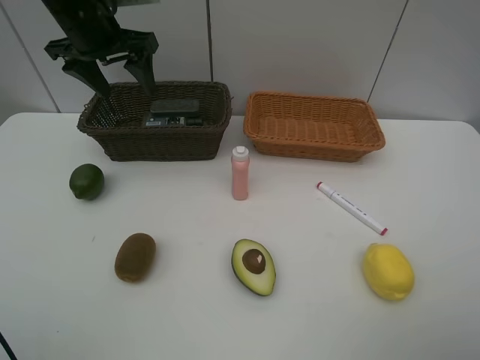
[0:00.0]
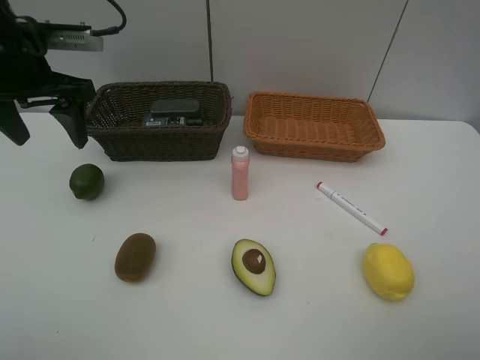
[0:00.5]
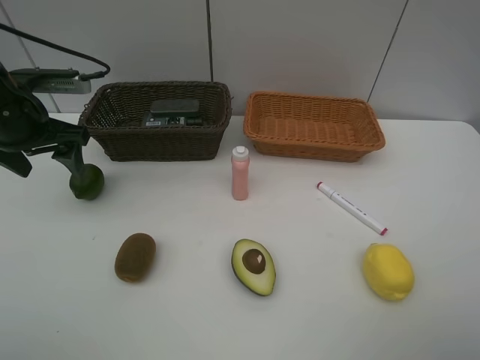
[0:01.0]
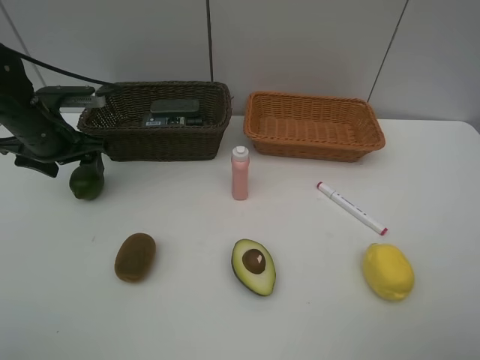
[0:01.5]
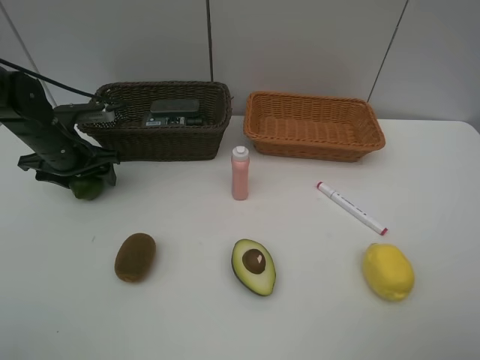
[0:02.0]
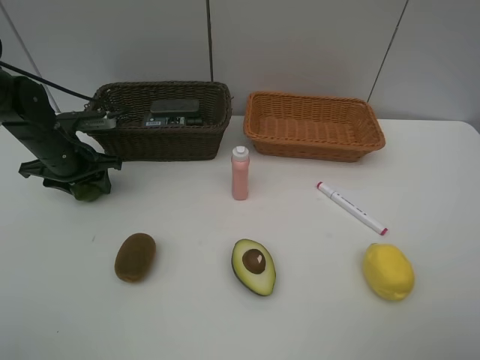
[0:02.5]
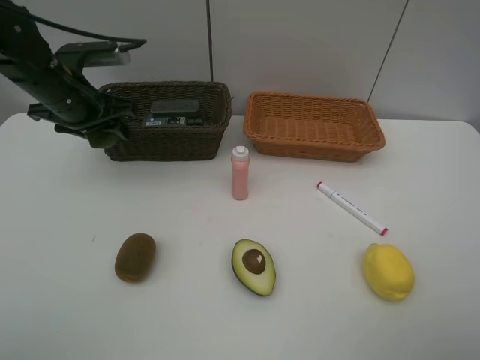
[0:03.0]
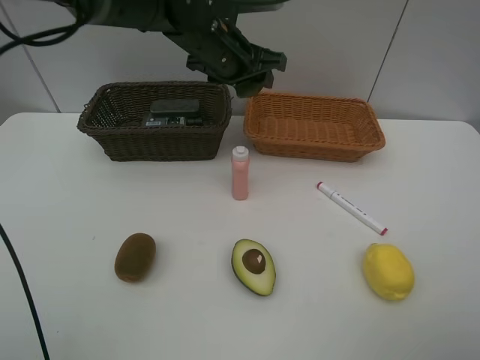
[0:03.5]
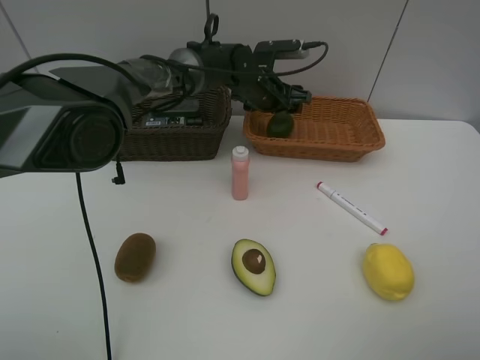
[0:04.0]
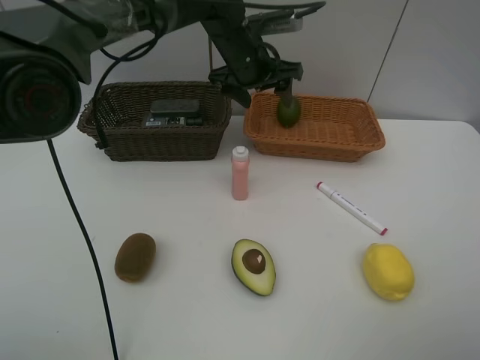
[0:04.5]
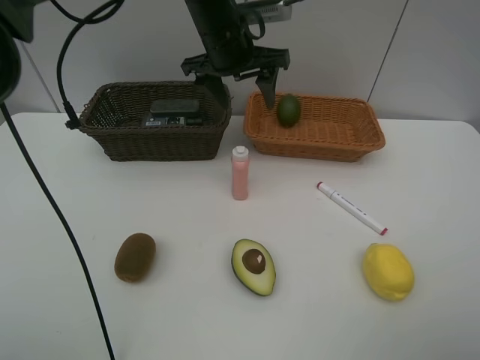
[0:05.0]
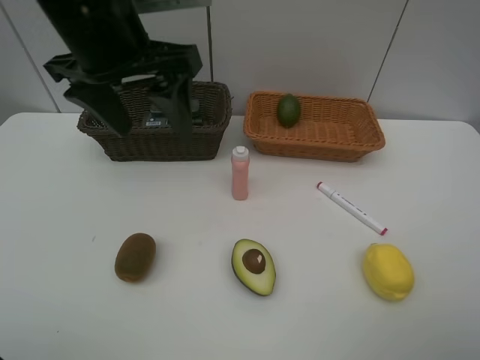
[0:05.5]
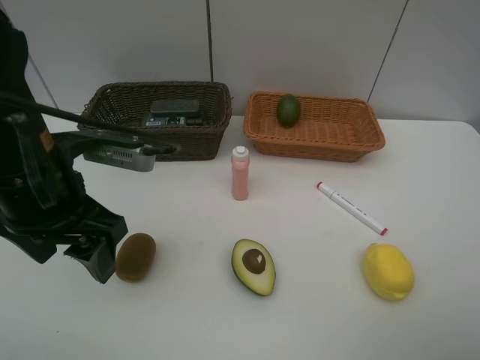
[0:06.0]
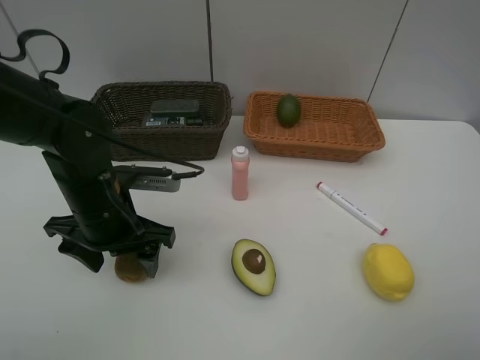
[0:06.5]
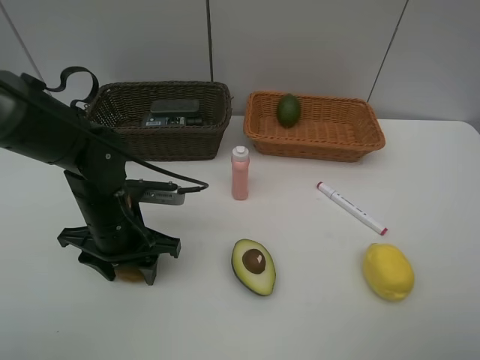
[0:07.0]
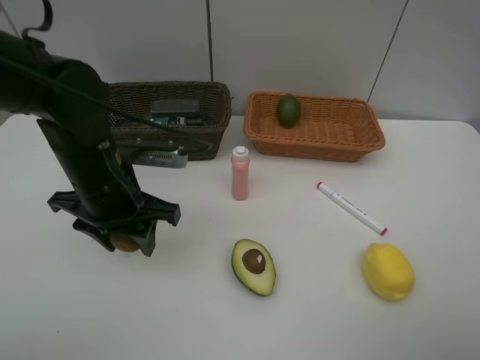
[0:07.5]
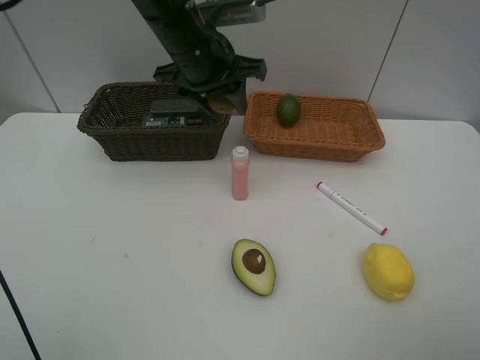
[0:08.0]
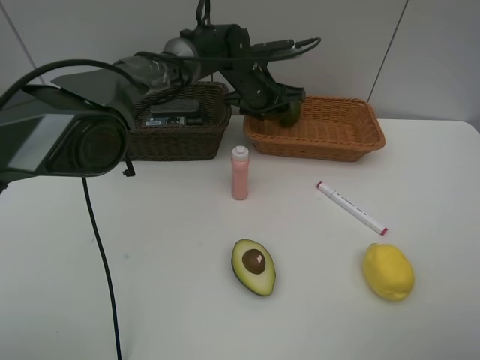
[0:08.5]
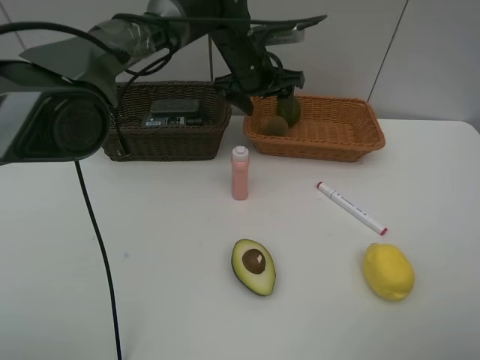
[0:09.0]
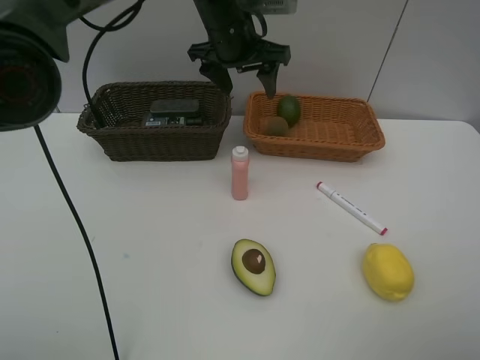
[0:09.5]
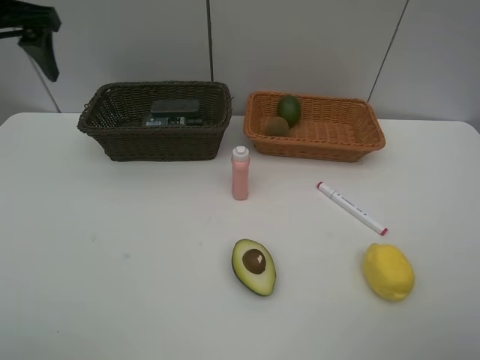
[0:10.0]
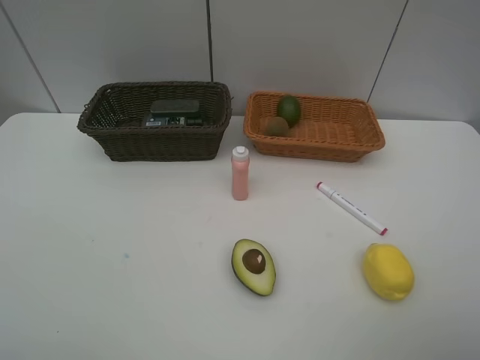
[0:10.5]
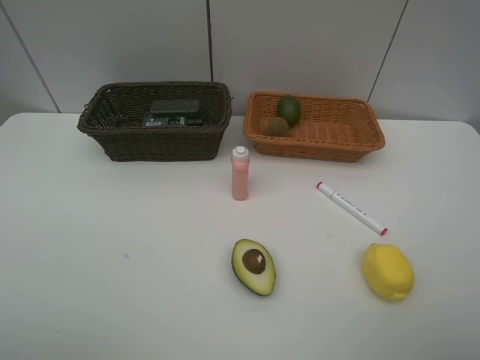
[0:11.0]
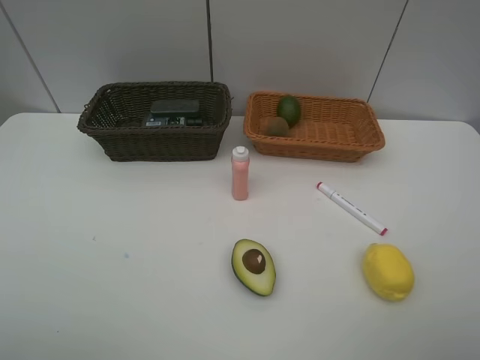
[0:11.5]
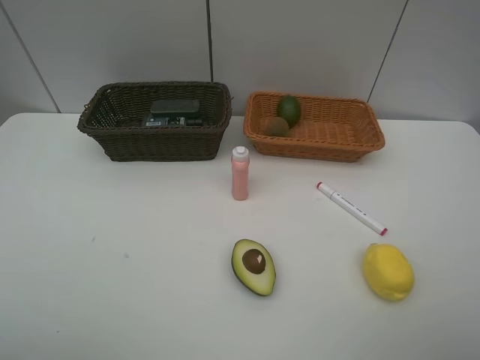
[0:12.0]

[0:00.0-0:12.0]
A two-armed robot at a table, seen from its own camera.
Task of the whole recording: Place multiple objects separately in different baskets.
Step, 0:00.0 to 0:02.5: Pick up the lime with left gripper.
Step, 0:03.0 to 0:04.0: Place the lime in the light basket with left gripper.
Step, 0:04.5 to 0:07.0: Pick up kiwi with left gripper.
Step, 0:07.5 to 0:08.5: Place the kiwi in the light basket with left gripper.
0:00.0 to 0:02.0: The left gripper is displaced downward and to the left by roughly 20 cm.
0:02.0 to 0:04.0: The left gripper goes approximately 30 cm to the right, and closes, then opens again.
0:04.0 to 0:06.0: The left gripper moves backward and to the left, approximately 35 cm.
0:06.0 to 0:08.0: The left gripper heads forward and to the right, covering about 25 cm, and closes.
0:08.0 to 0:10.0: The left gripper travels to the left by roughly 25 cm, and opens.
0:10.0 to 0:12.0: The left gripper shifts some 35 cm backward.

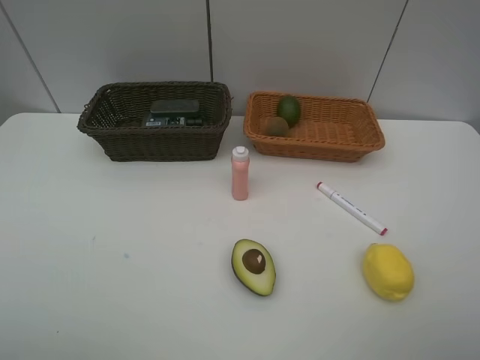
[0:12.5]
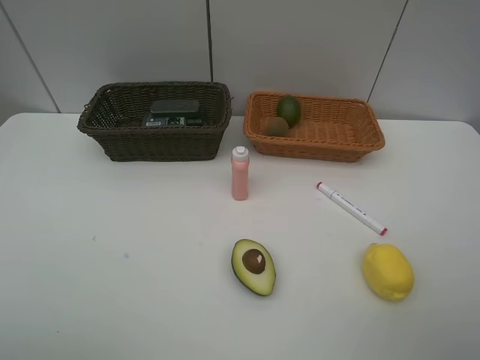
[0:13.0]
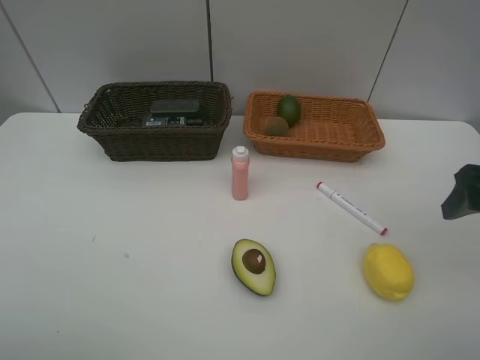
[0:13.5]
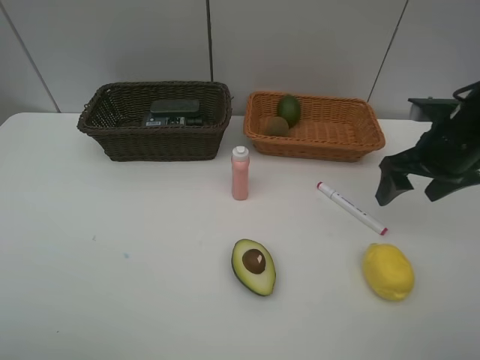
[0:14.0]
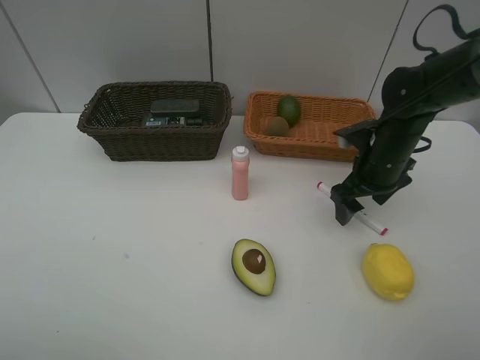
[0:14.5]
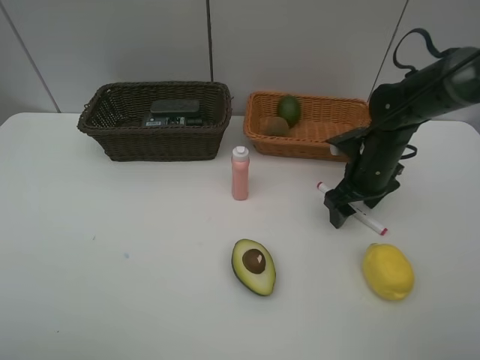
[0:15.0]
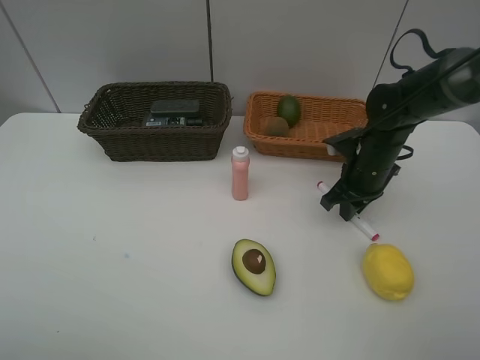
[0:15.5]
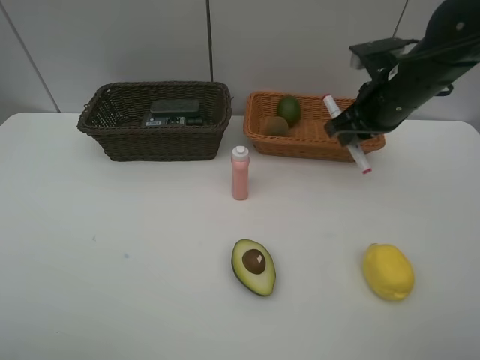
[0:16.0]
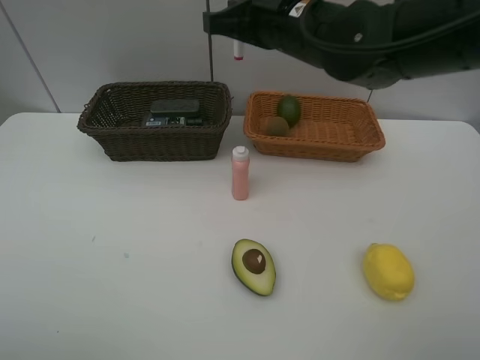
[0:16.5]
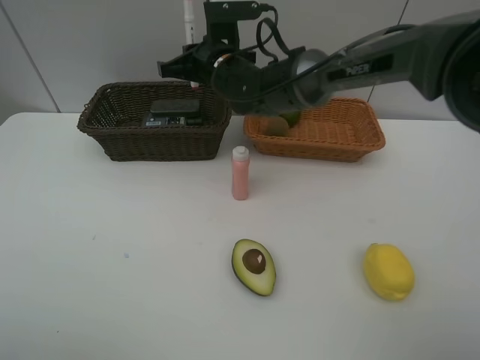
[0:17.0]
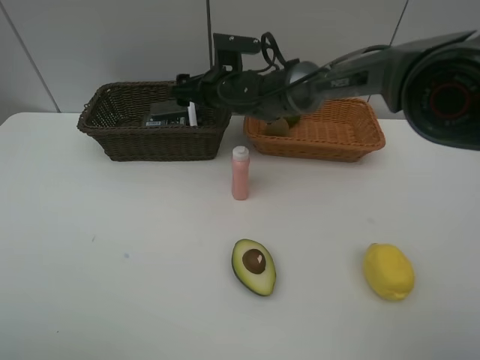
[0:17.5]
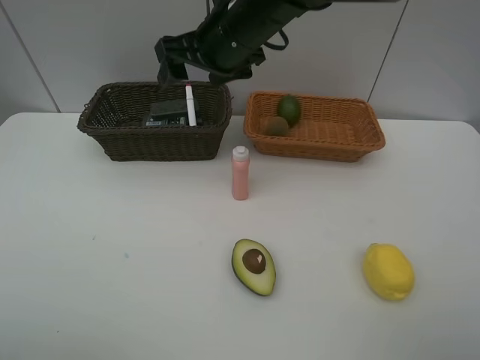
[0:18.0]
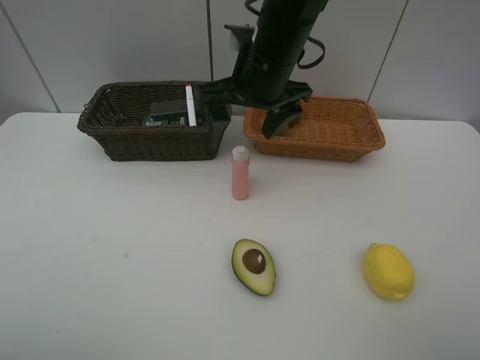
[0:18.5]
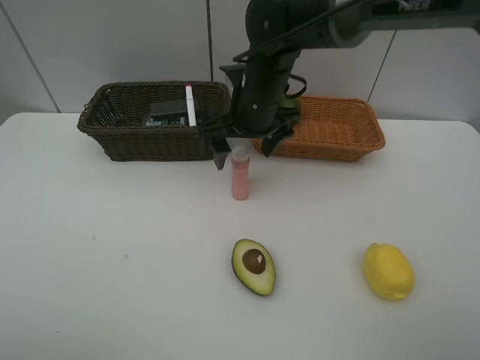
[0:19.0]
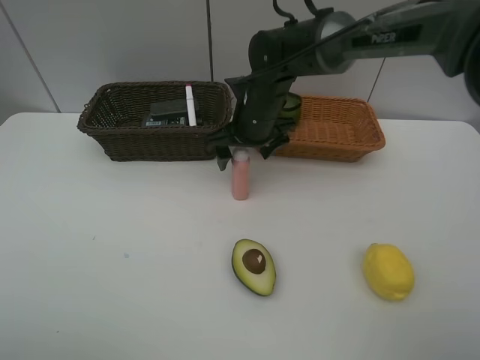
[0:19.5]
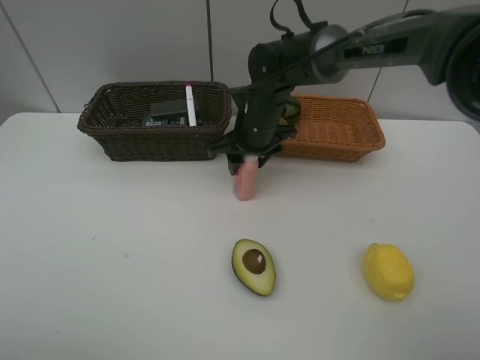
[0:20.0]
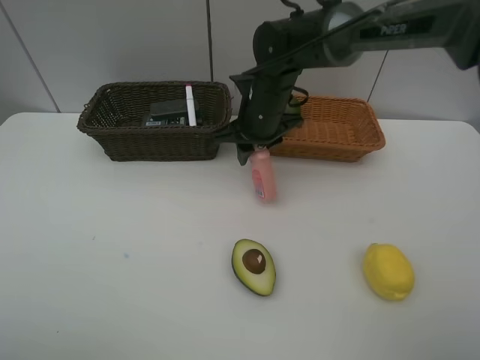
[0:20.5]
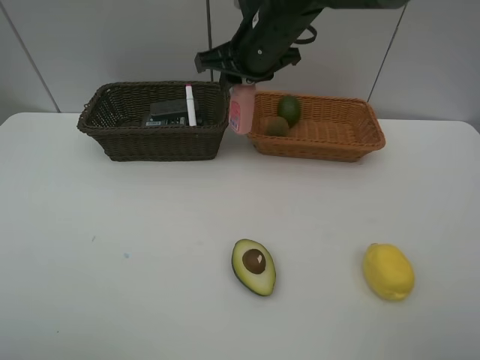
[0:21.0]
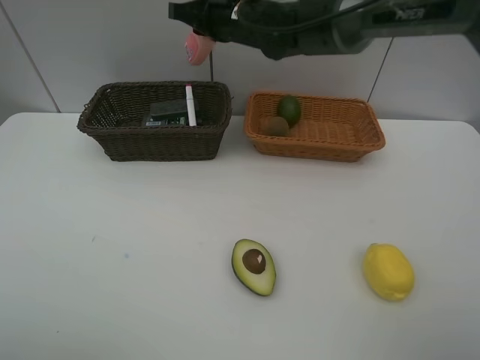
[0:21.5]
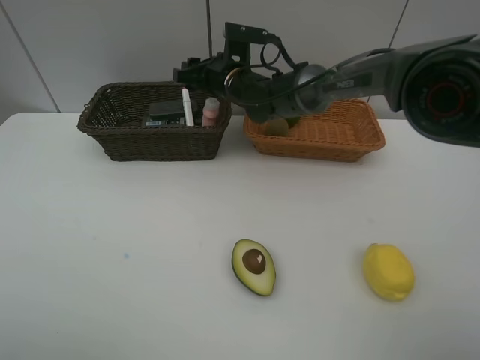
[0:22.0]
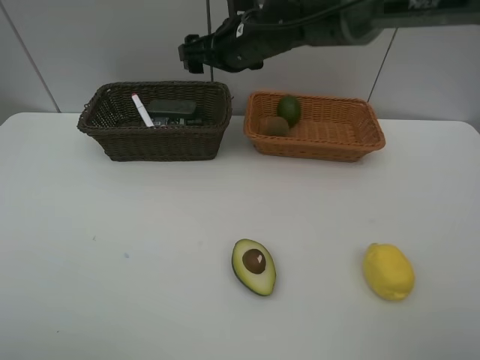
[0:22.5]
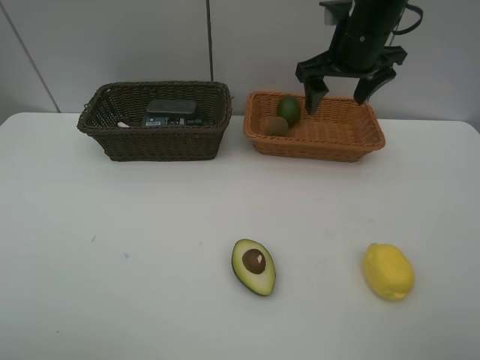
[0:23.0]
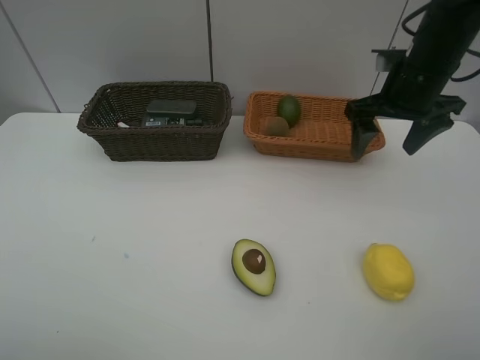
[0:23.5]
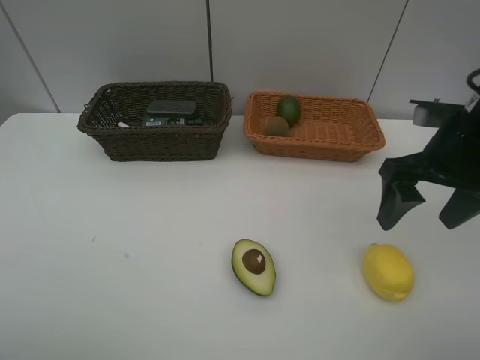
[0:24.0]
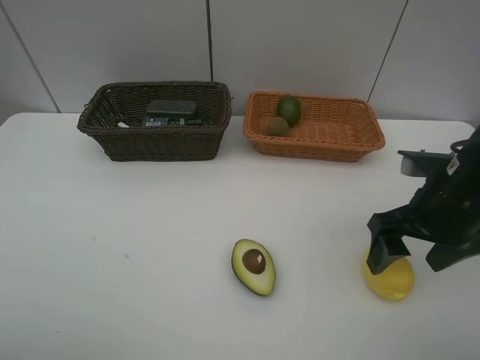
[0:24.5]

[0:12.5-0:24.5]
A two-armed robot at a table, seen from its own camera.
Task of the whole recording: Place multiple objects separately in different baskets.
Step, 0:12.5 to 0:15.5: Pick up the red marker with right gripper.
Step, 0:16.0 to 0:17.5: Place the red marker in the dark basket with right gripper.
Step, 0:18.0 to 0:20.5: Pick up the laundry detergent with right gripper.
Step, 0:21.0 to 0:22.0: Place the laundry detergent in the dark basket with right gripper.
0:12.5 to 0:14.5: The right gripper heads forward and downward, covering roughly 35 cm.
0:14.5 to 0:16.5: The right gripper is displaced to the left and upward by roughly 25 cm, and closes up.
0:16.5 to 0:18.5: The right gripper travels downward and back again, approximately 10 cm each way, and opens its fingers.
0:18.5 to 0:20.5: The right gripper moves downward, about 5 cm, and closes up.
0:20.5 to 0:22.5: The right gripper swings up and down, about 10 cm each way, with 2 reversals, and opens its fingers.
0:22.5 to 0:24.5: The right gripper shifts approximately 30 cm to the right and backward.

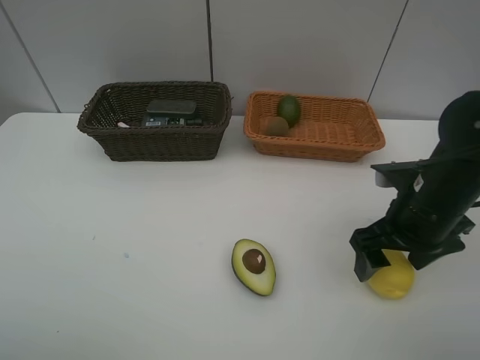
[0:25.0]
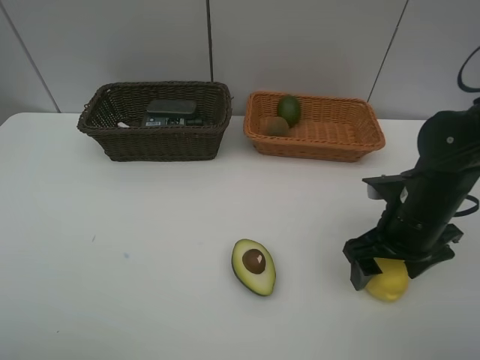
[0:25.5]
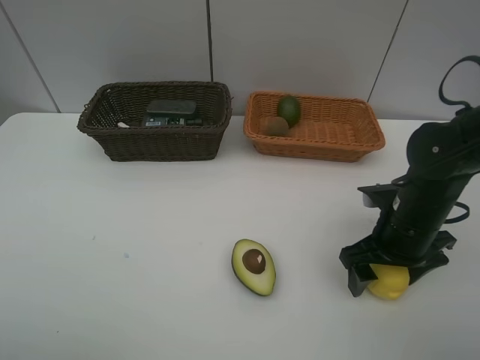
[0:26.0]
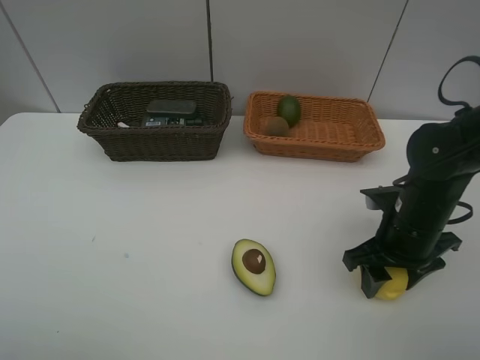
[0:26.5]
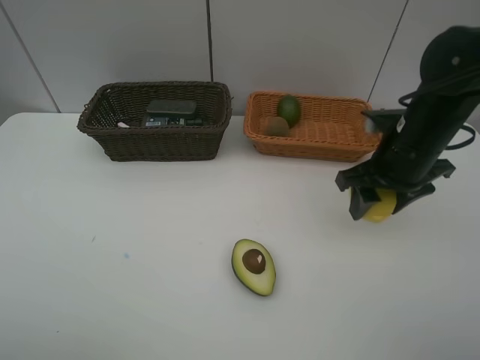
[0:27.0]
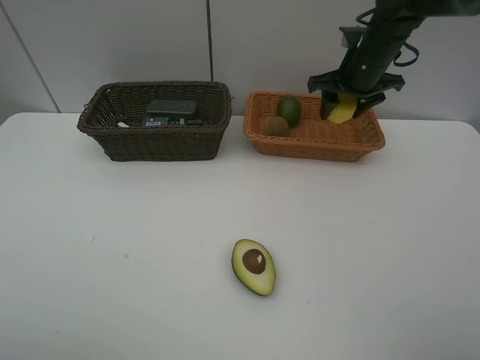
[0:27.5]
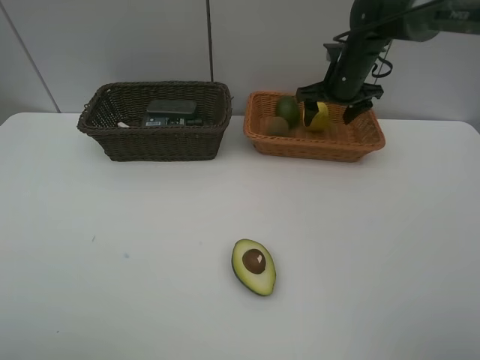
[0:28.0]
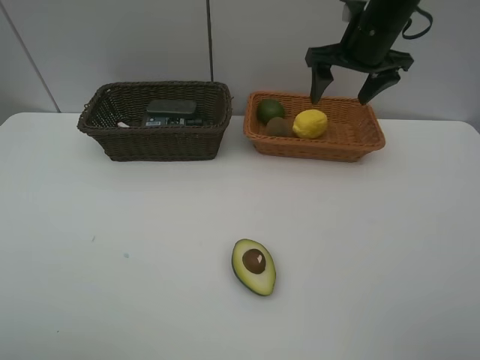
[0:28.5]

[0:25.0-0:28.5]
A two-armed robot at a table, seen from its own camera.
Task of the whole recording: Place multiple objects separately in different baskets.
Step, 0:27.0 to 0:28.0: Place the lemon in the light basket with right gripper.
0:25.0 to 0:27.0: The right gripper travels forward by some 5 cm, and closes.
0:27.0 to 0:28.5: The right gripper is displaced forward and upward by roughly 15 cm, and opens up.
